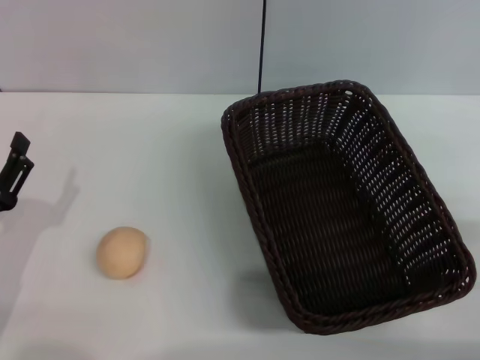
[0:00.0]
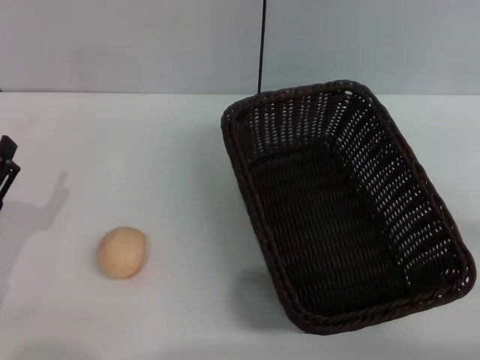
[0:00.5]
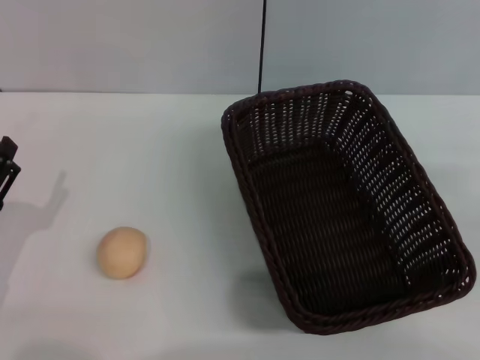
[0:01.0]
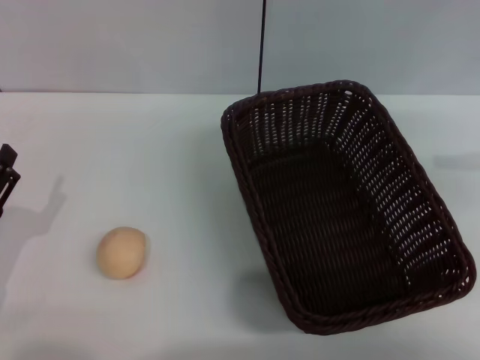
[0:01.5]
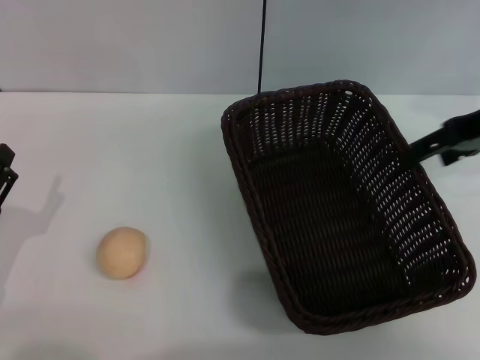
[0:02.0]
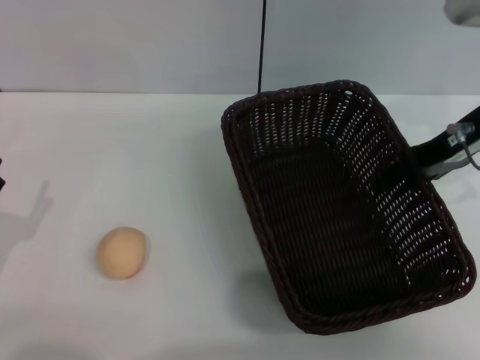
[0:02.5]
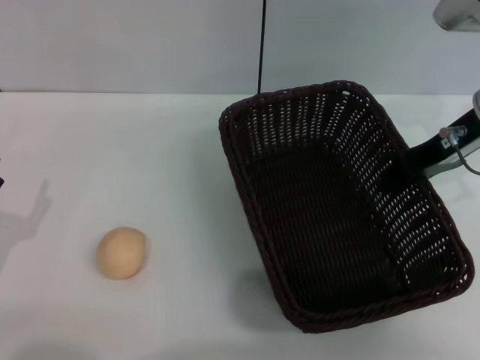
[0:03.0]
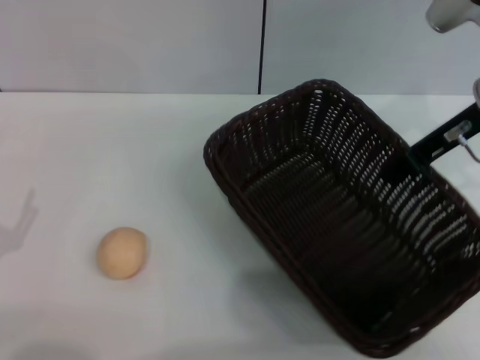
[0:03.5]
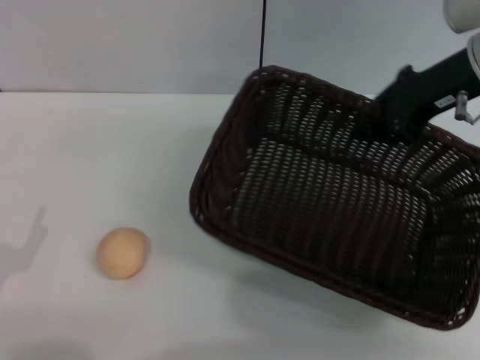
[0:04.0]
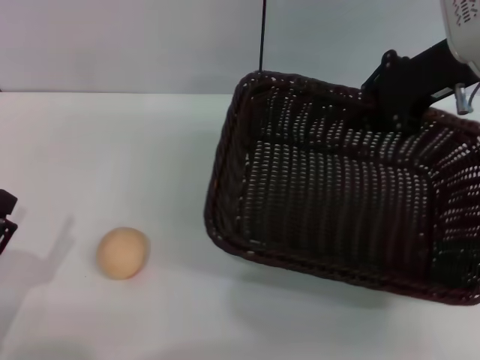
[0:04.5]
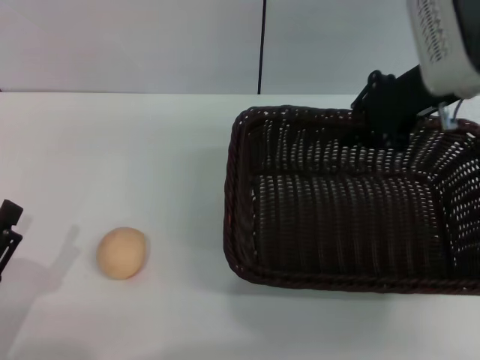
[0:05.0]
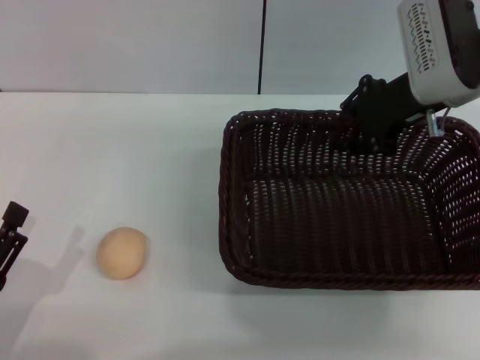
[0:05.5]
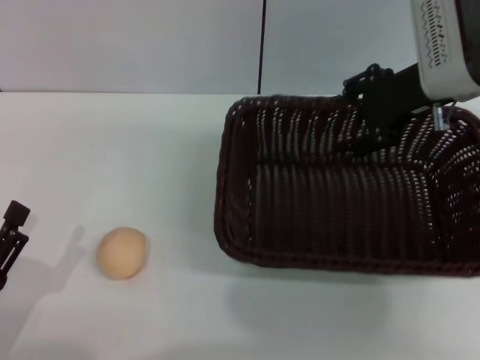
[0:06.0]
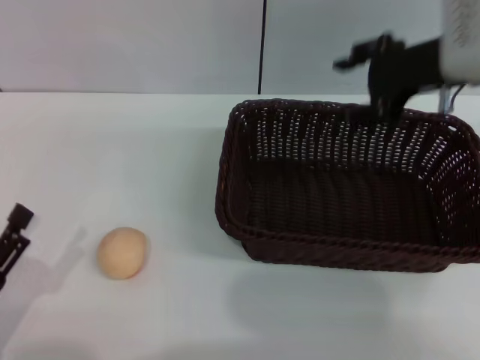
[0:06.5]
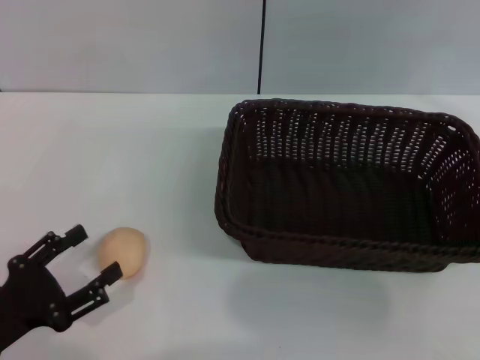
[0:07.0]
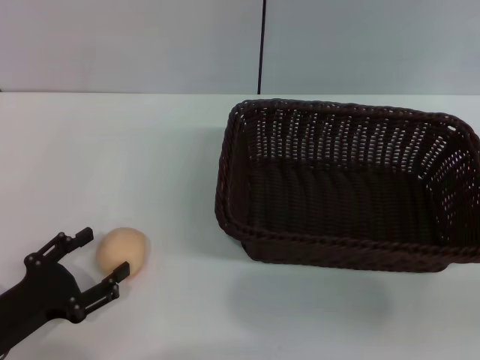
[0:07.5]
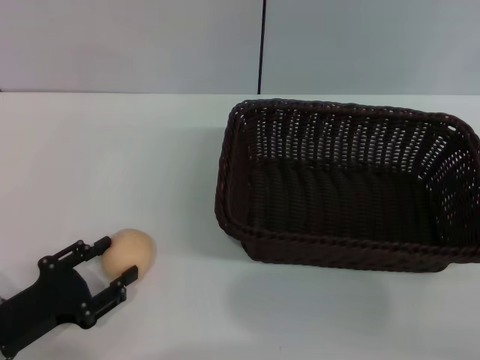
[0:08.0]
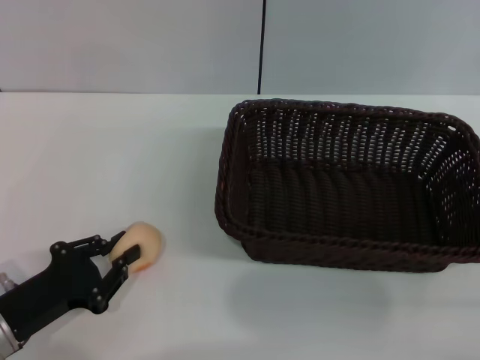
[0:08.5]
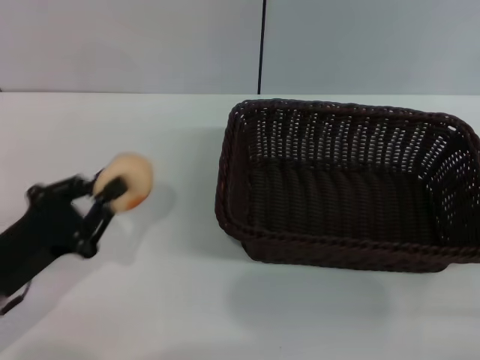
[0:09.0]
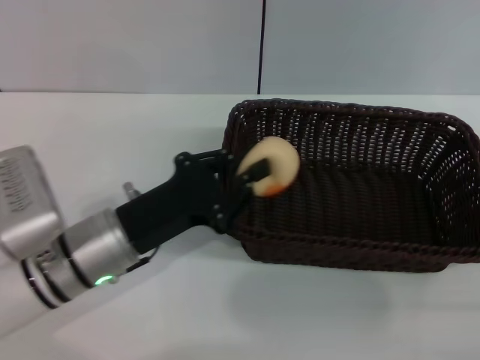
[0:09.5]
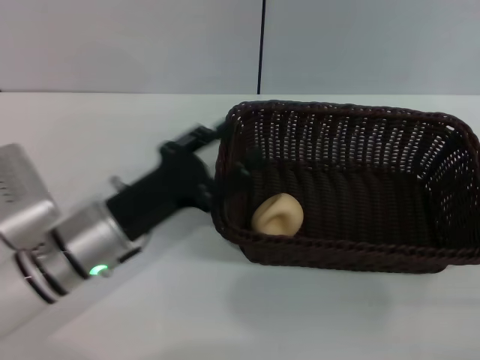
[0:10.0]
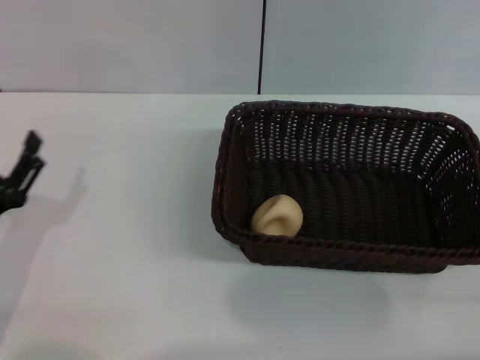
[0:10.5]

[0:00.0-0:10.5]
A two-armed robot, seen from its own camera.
Step, 0:00.0 to 0:06.0: Move the basket to the center of view with the right gripper.
Step, 0:07.0 to 0:08.5: Pick up the egg yolk pastry with the left gripper.
Step, 0:09.0 to 0:10.0: Place the egg yolk pastry into the basket with the left gripper.
0:00.0 to 0:02.0: The right gripper moves forward and upward, approximately 25 cm.
0:02.0 to 0:04.0: The right gripper ends up approximately 5 cm from where it was, and closes, while the left gripper shifts approximately 5 cm backward.
0:04.0 to 0:06.5: The right gripper opens.
0:06.5 to 0:08.5: The left gripper heads forward, covering some 5 cm, and closes; the right gripper is displaced backward, downward and to the right by some 30 cm.
0:08.5 to 0:10.5: The left gripper moves approximately 10 cm to the right and comes back, and opens its fingers.
